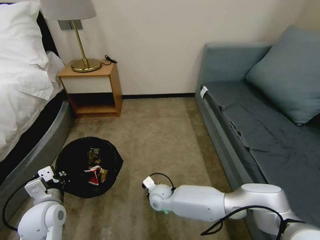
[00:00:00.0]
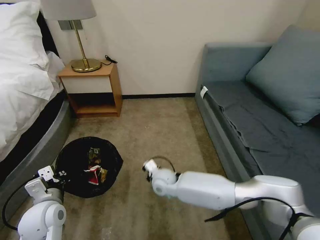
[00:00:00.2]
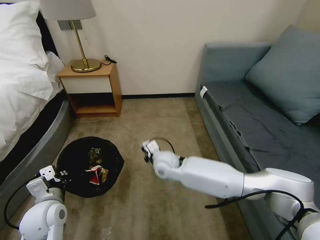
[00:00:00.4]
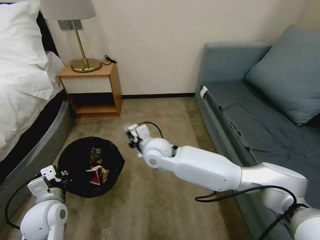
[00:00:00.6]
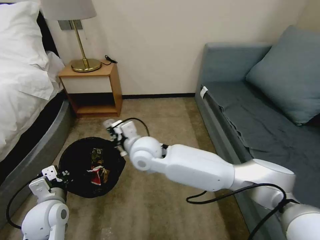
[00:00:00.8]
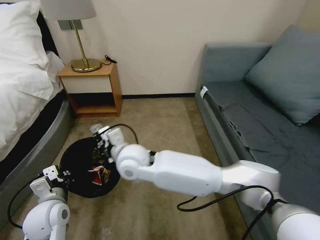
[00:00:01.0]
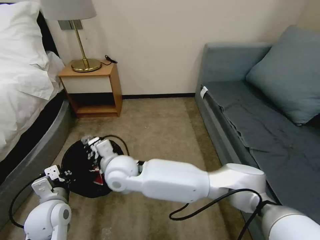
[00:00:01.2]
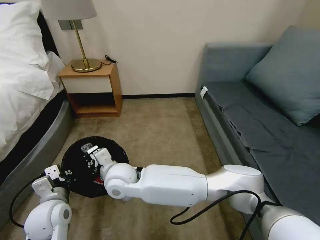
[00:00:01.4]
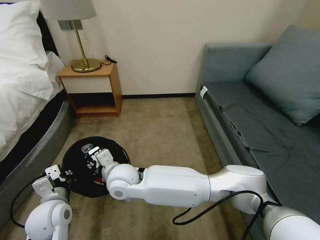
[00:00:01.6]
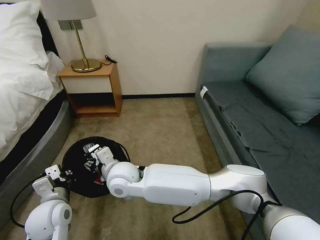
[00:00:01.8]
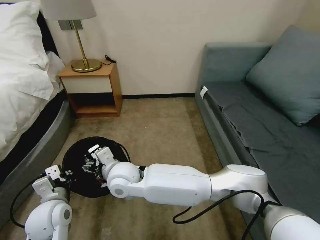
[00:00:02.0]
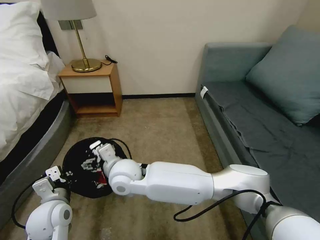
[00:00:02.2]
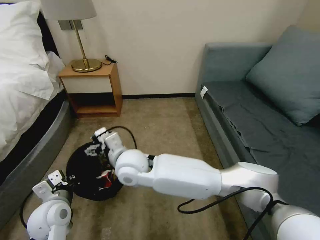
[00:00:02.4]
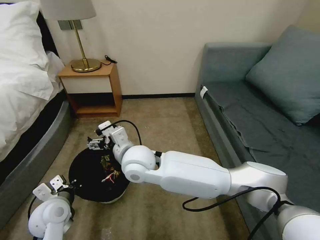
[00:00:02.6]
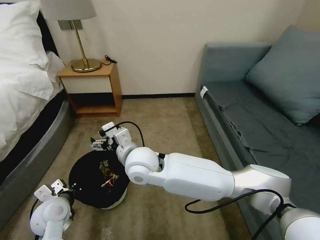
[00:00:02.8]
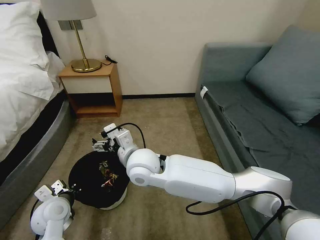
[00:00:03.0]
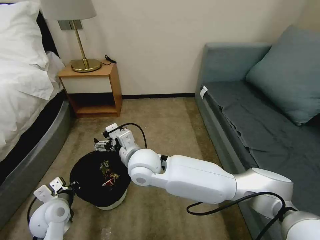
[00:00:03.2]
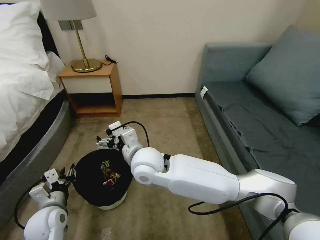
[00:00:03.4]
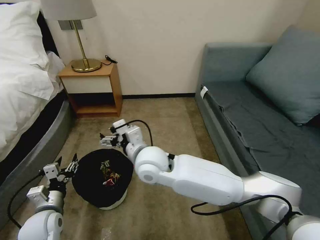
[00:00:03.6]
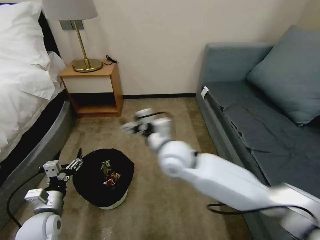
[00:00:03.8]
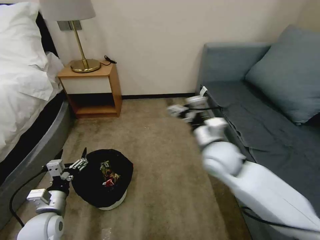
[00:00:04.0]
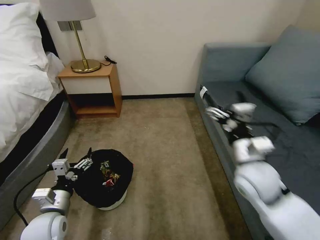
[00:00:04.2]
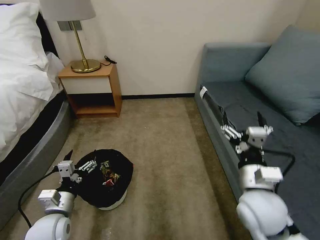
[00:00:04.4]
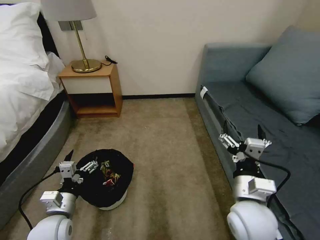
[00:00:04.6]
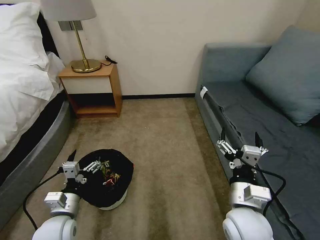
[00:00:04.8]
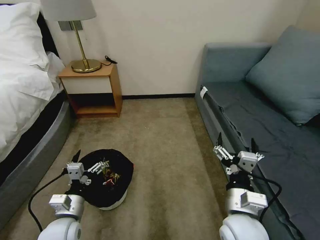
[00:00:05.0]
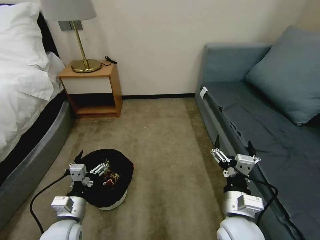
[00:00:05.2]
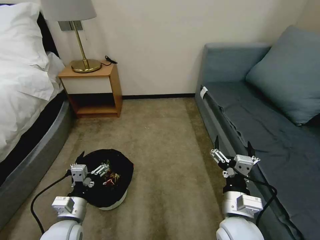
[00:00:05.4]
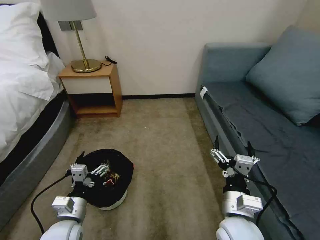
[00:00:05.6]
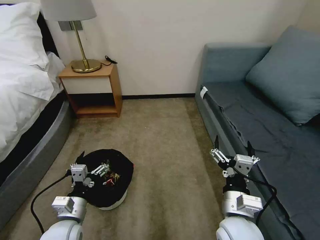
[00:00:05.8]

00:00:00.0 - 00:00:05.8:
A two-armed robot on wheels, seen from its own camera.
Task of the whole recording: Pick up the trash bin, then pick up the garbage on the floor and place it into the trash bin.
00:00:00.0 - 00:00:01.4: The right gripper moves upward and to the left, approximately 25 cm.
00:00:01.4 - 00:00:02.8: The right gripper travels to the right and upward by approximately 10 cm, and opens, while the left gripper changes place by roughly 5 cm.
00:00:02.8 - 00:00:04.4: The right gripper moves to the right, about 30 cm; the left gripper opens its fingers.
00:00:04.4 - 00:00:05.8: The right gripper goes roughly 10 cm to the left, backward and downward.
